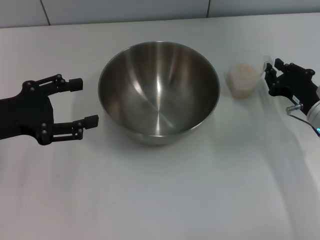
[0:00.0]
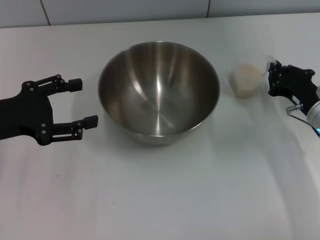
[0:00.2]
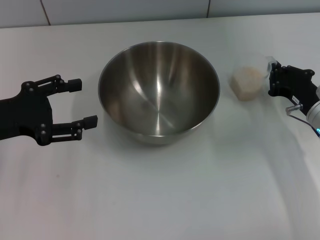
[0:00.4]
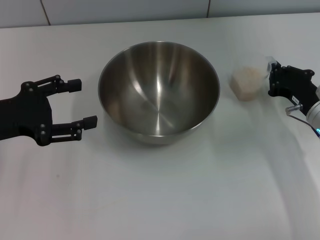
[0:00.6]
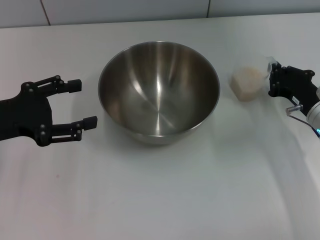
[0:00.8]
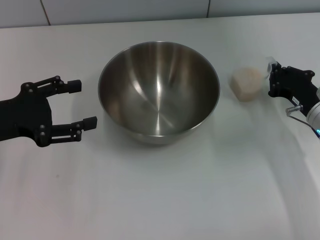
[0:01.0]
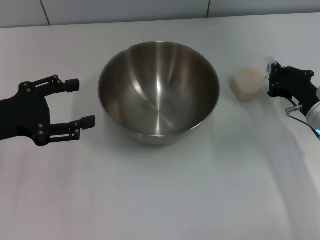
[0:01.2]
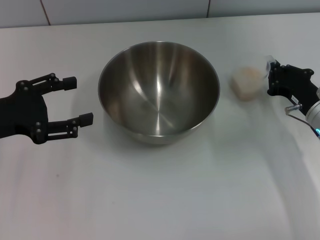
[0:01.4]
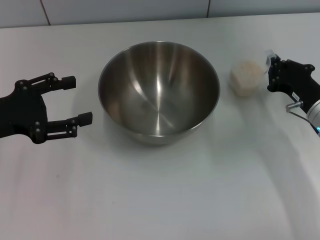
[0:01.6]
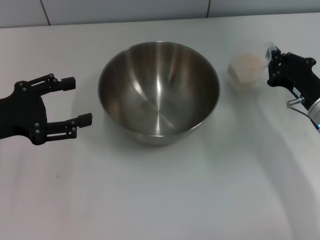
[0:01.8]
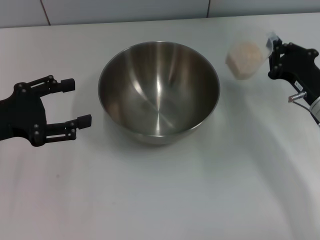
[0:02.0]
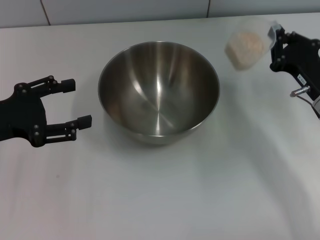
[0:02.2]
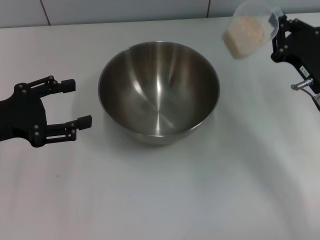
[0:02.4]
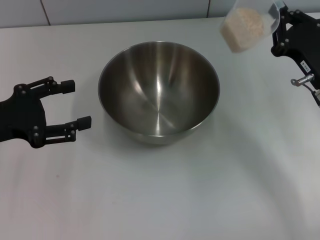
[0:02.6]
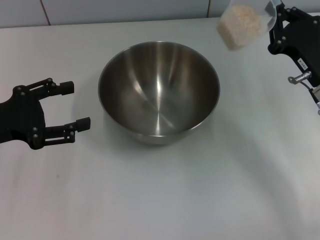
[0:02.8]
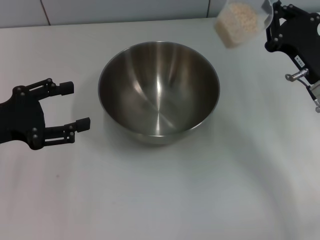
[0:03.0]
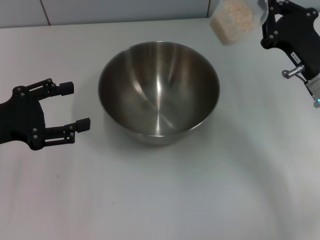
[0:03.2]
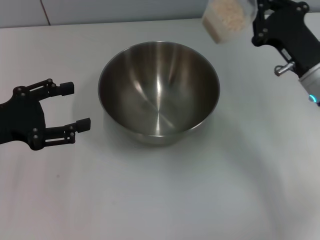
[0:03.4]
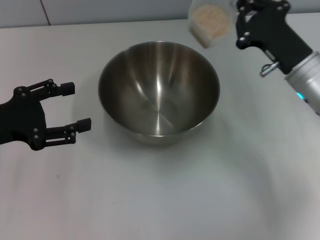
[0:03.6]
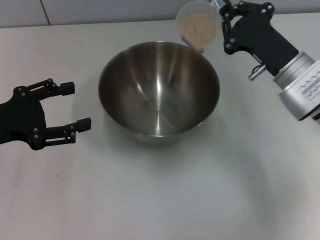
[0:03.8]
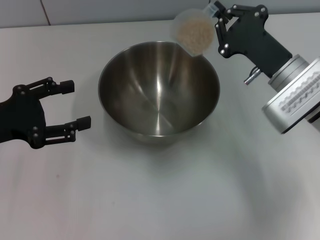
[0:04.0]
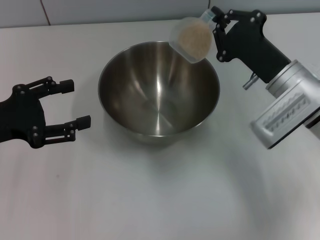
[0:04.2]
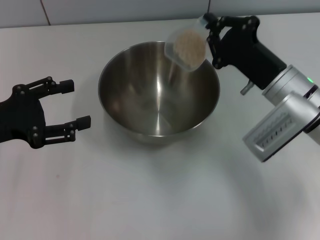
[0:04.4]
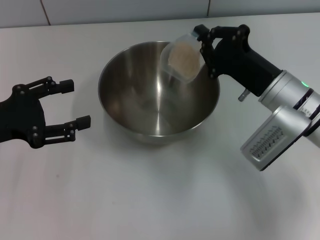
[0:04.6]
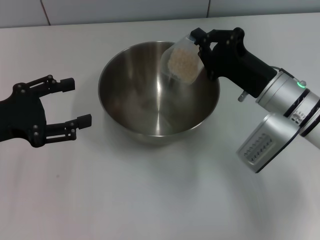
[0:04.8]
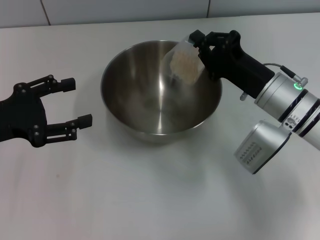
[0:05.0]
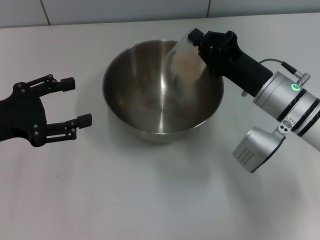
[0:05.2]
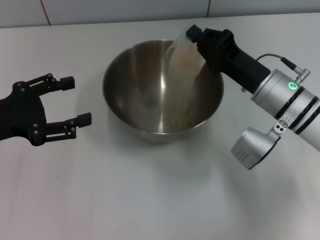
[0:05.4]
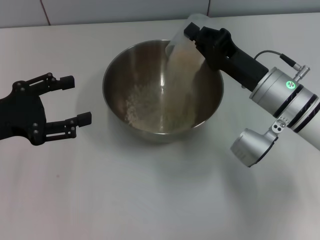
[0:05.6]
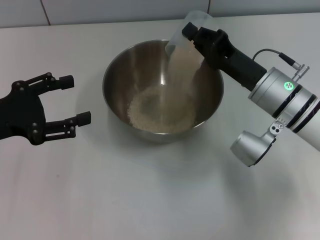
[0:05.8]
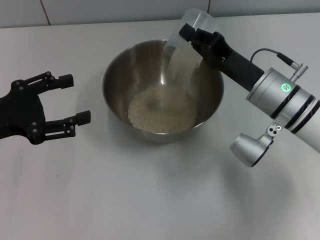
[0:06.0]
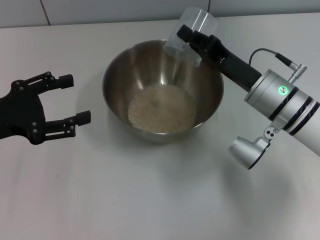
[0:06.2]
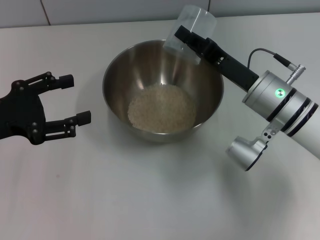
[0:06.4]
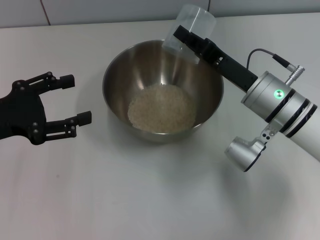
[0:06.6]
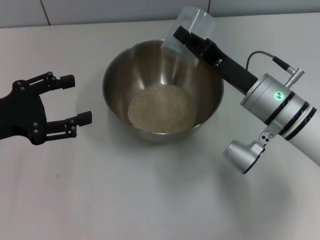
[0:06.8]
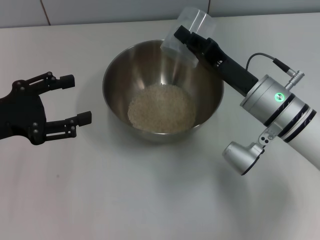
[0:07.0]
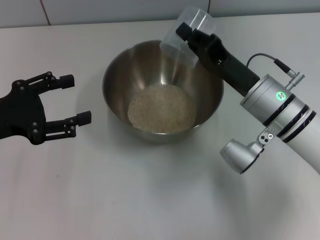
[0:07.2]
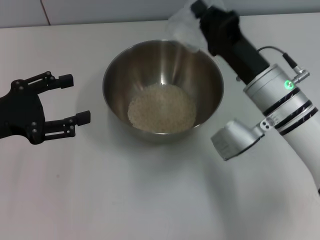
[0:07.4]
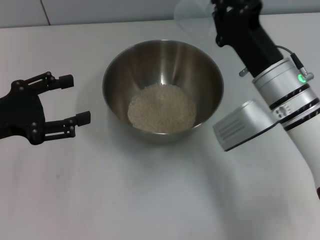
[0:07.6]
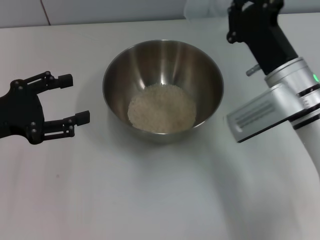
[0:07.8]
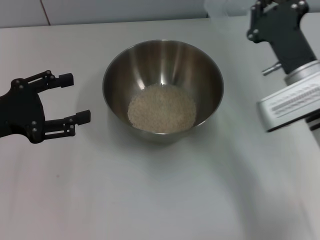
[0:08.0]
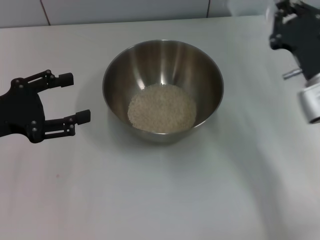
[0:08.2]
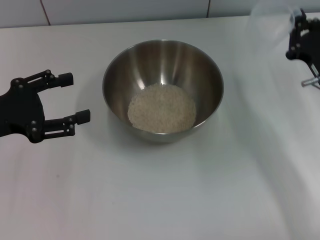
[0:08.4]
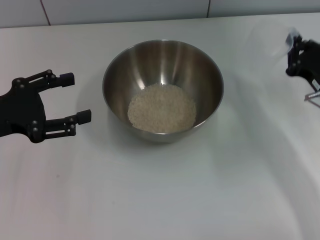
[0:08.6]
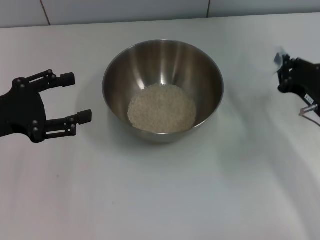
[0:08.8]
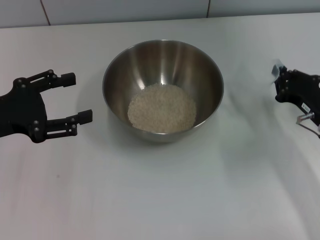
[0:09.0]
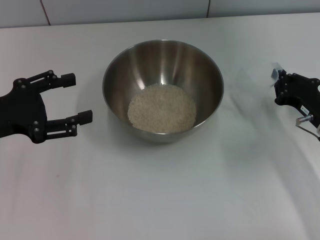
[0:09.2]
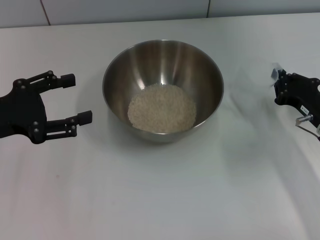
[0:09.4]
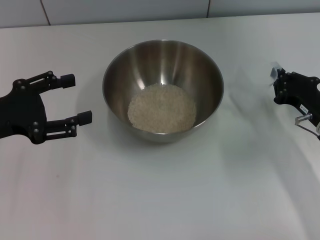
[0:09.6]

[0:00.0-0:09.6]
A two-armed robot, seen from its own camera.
Task of the whole recording: Place the bowl in the middle of the table with one hand and pour the rice from the grain cup into it with the other hand.
Step, 0:01.8 to 0:07.4: Pour the rice from the cup into the bowl with the right gripper.
0:00.0 to 0:01.6: The right gripper closes up.
0:01.6 to 0:03.2: The right gripper moves upward, about 5 cm.
0:03.2 to 0:04.8: The right gripper travels to the left by some 5 cm.
0:08.0 to 0:09.6: The right gripper travels to the right and downward by approximately 10 cm.

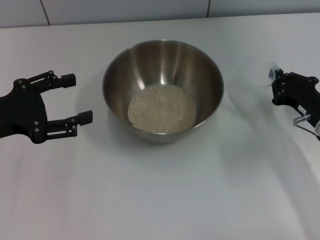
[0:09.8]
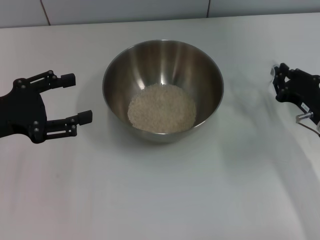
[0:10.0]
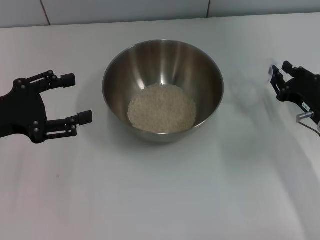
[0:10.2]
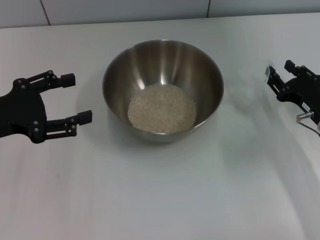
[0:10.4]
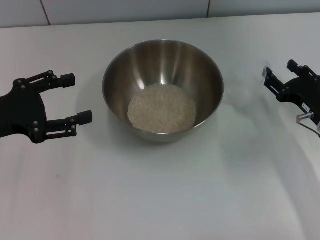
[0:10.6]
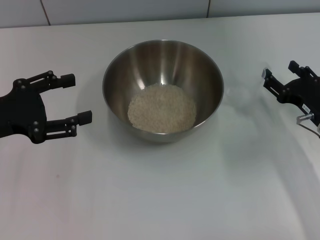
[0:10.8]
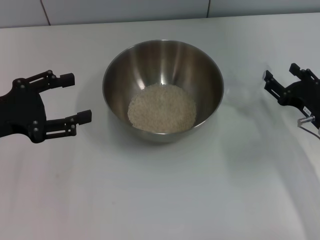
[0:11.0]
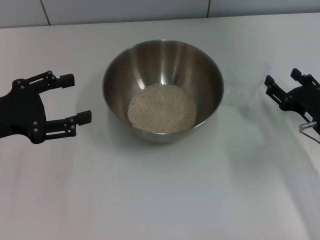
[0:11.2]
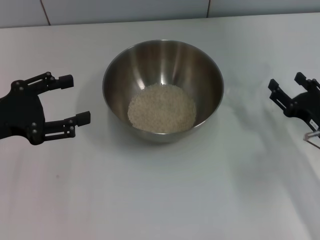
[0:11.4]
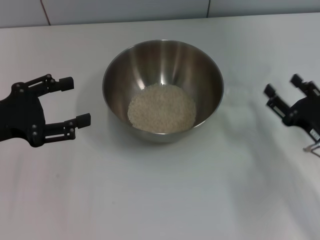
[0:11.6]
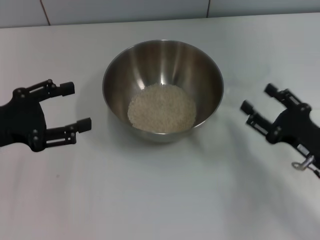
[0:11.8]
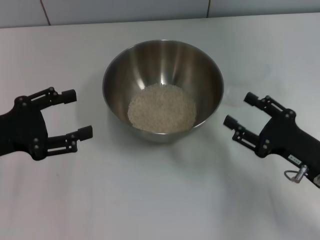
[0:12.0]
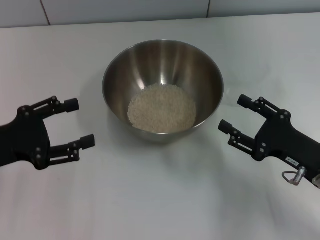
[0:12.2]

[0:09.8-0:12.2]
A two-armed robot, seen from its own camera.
Task of the whole recording: Place the bowl in the middle of the table with one hand and pour the rice from the grain cup into it with the other hand.
0:09.8 to 0:11.0: The right gripper opens its fingers.
0:11.0 to 0:12.2: The right gripper goes roughly 5 cm backward.
